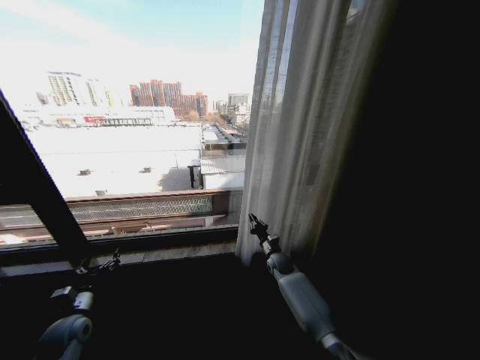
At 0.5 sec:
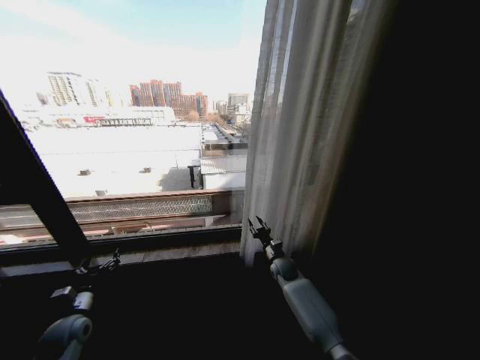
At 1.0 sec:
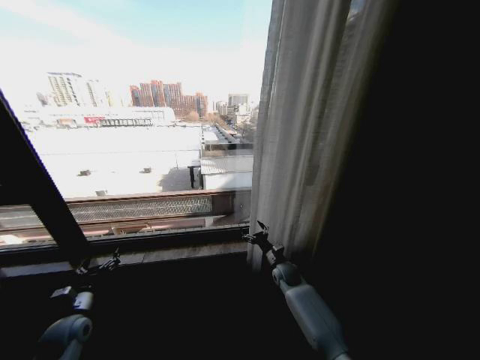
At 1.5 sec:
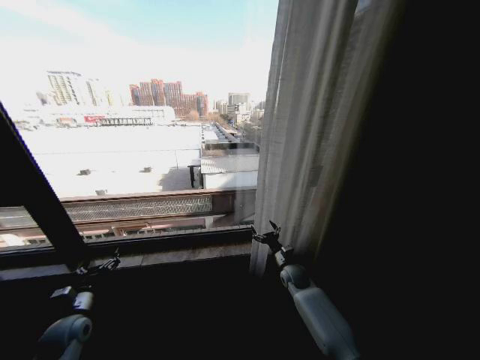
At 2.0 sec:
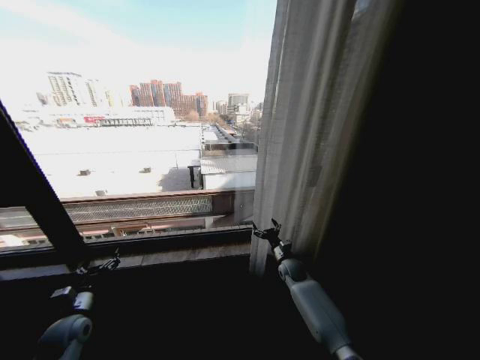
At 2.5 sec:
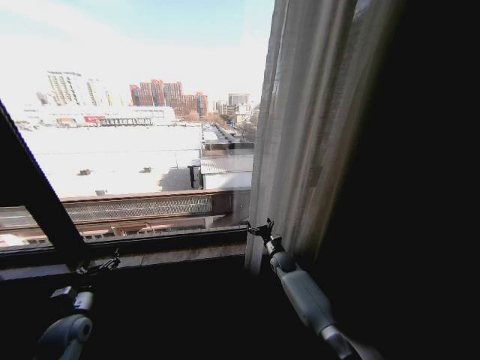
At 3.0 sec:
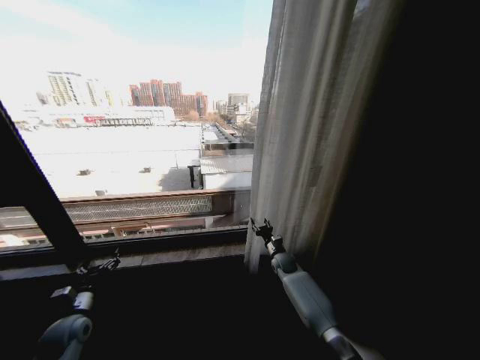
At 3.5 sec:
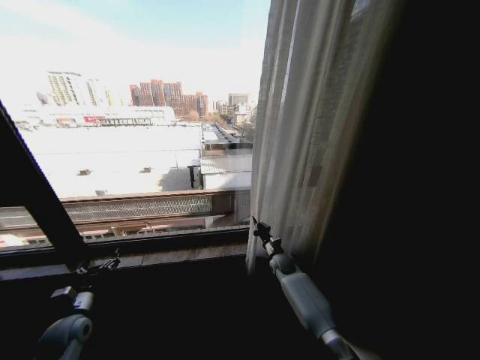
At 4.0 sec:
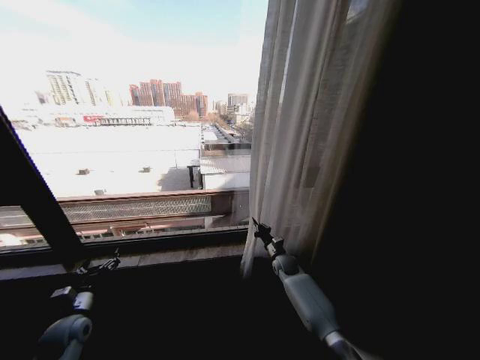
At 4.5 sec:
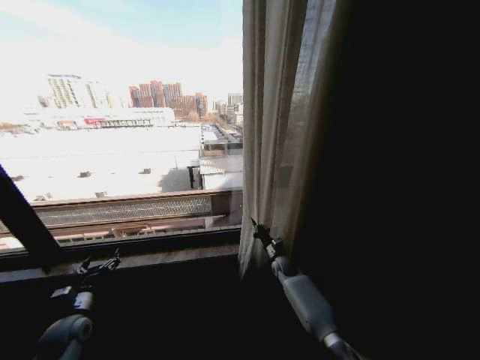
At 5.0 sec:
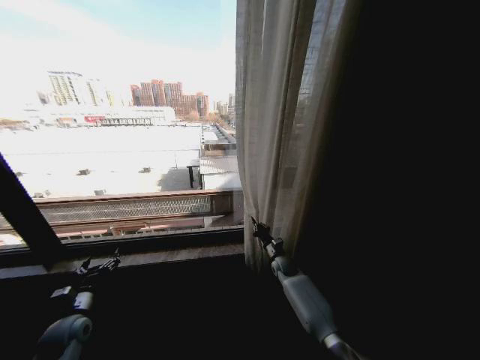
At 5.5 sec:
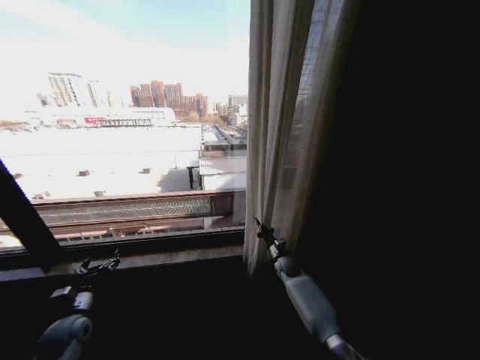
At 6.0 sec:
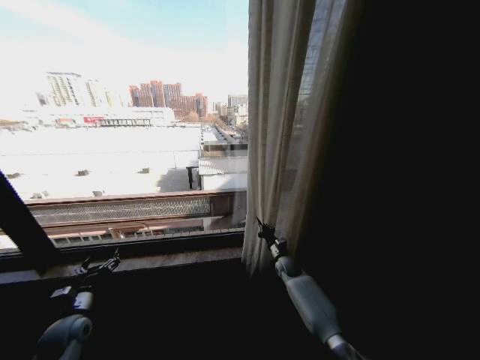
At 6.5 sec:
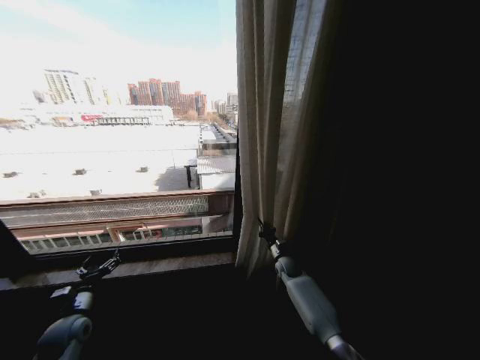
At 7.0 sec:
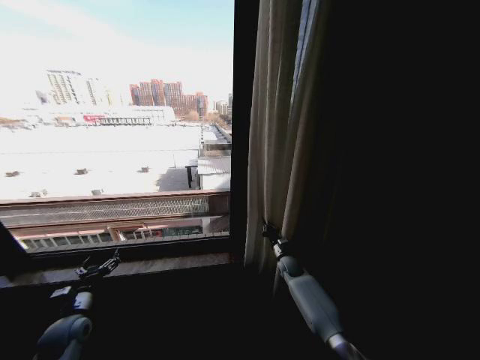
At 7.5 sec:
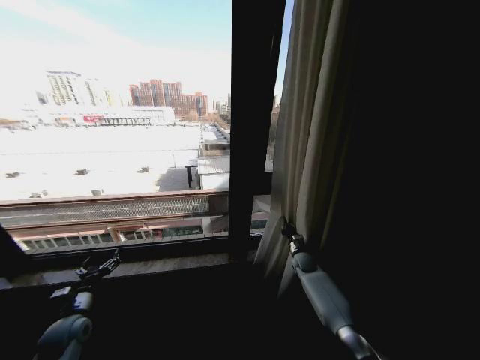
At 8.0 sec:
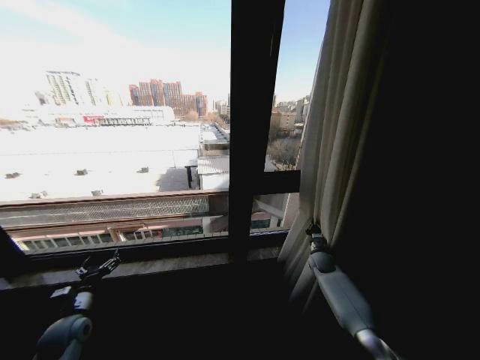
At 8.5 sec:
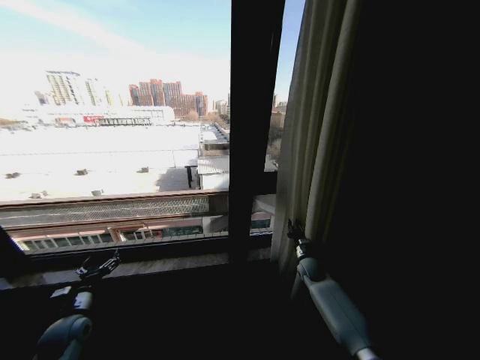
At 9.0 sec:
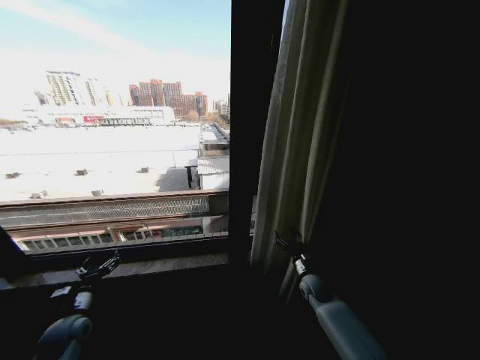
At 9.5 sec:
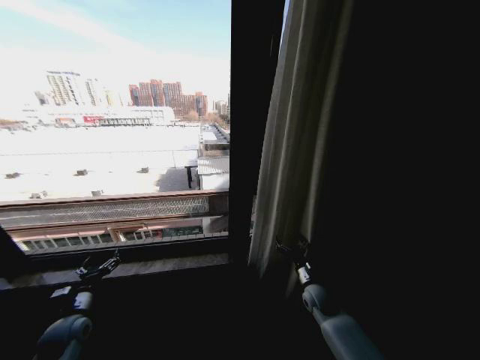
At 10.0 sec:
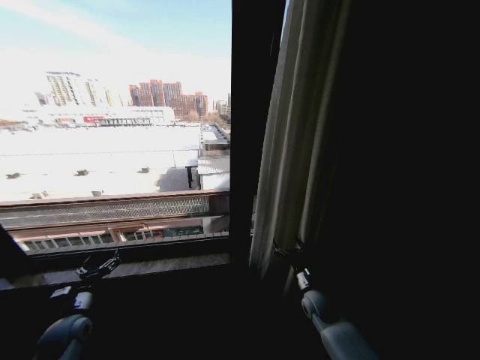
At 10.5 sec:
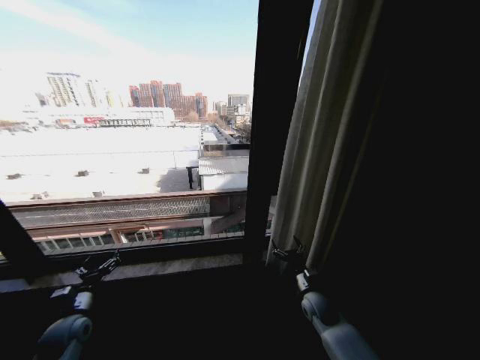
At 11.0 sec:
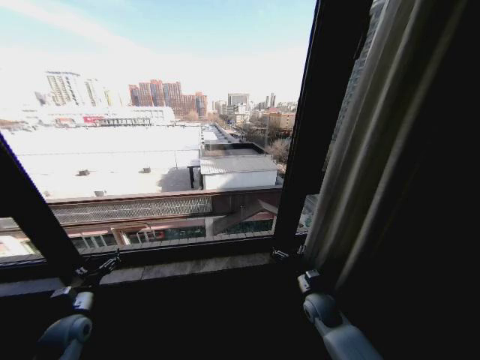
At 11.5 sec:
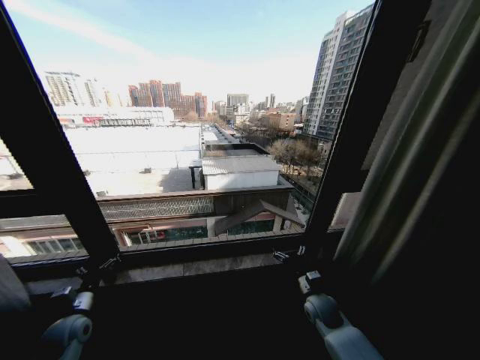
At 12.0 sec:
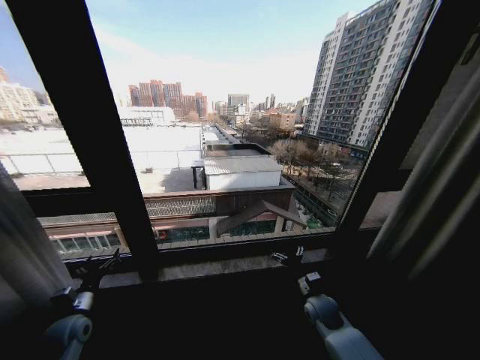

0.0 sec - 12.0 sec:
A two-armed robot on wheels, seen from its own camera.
Task of the whole recording: Open the curtains by pulling them apart, changing their state from closed to fully open.
0.0 sec - 2.0 sec: The right gripper opens.
2.0 sec - 4.0 sec: The right gripper closes.
4.0 sec - 6.0 sec: Neither gripper changes place.
6.0 sec - 8.0 sec: The right gripper shifts roughly 15 cm to the right.
8.0 sec - 10.0 sec: The right gripper travels backward and to the left by some 15 cm, and opens its fingers.

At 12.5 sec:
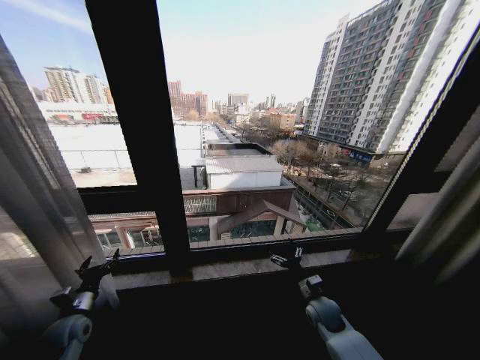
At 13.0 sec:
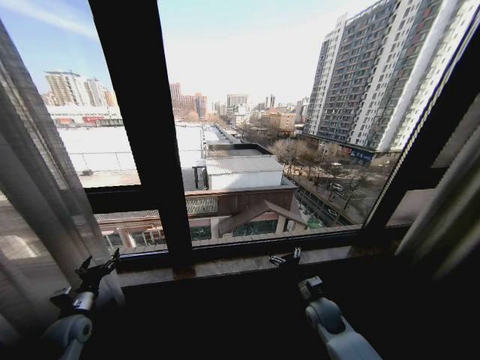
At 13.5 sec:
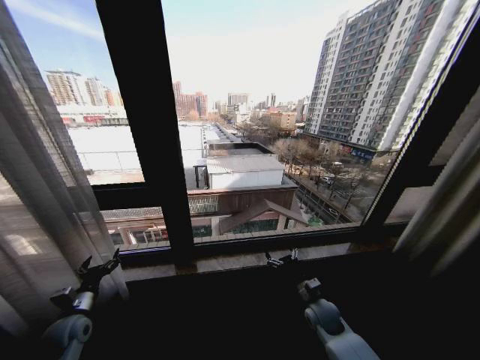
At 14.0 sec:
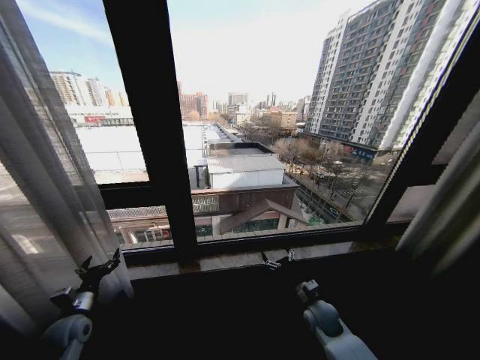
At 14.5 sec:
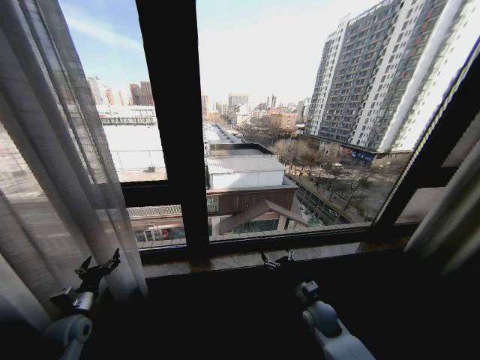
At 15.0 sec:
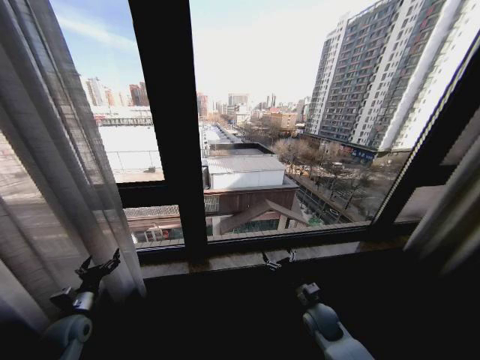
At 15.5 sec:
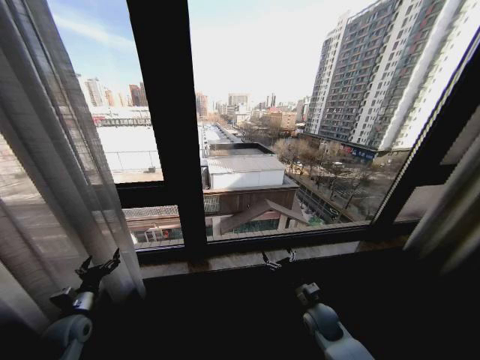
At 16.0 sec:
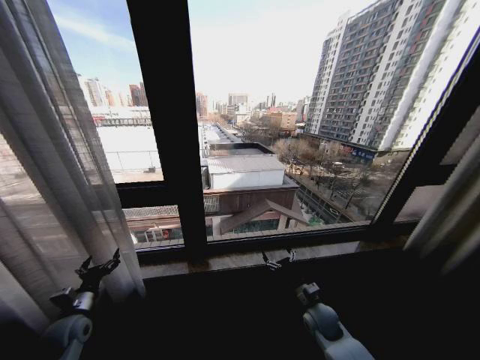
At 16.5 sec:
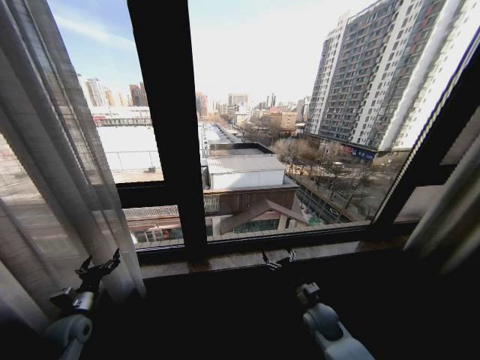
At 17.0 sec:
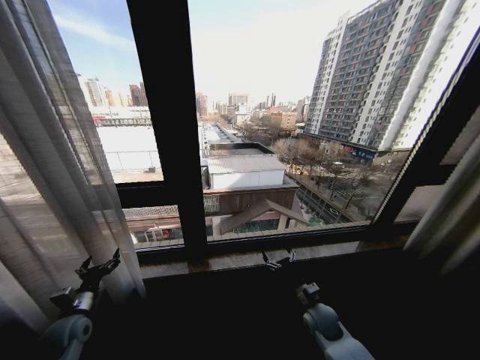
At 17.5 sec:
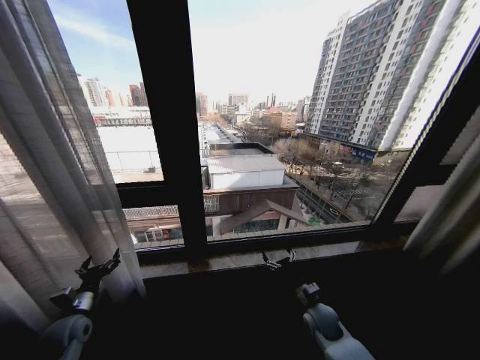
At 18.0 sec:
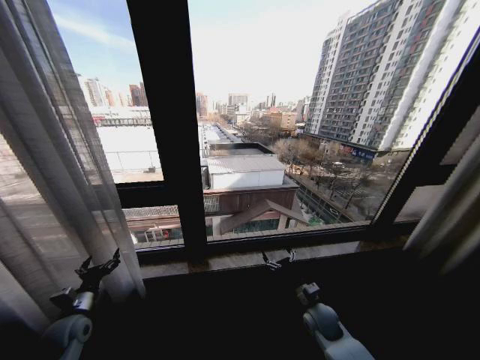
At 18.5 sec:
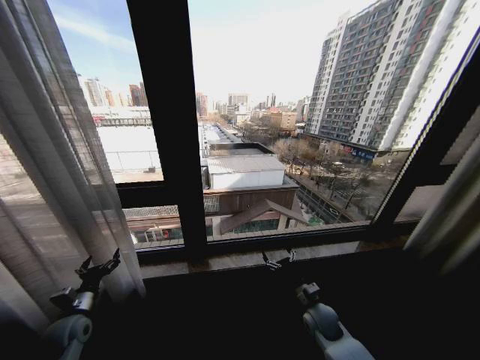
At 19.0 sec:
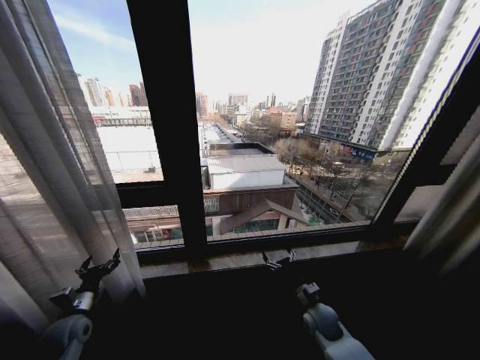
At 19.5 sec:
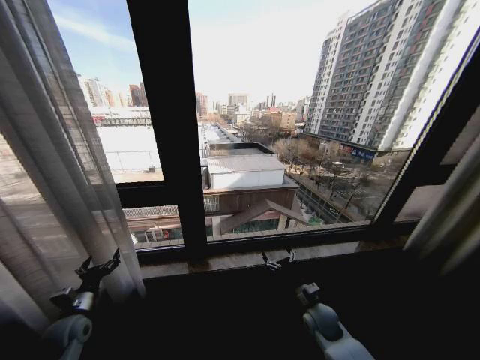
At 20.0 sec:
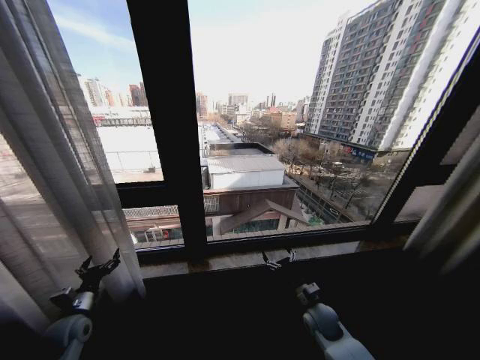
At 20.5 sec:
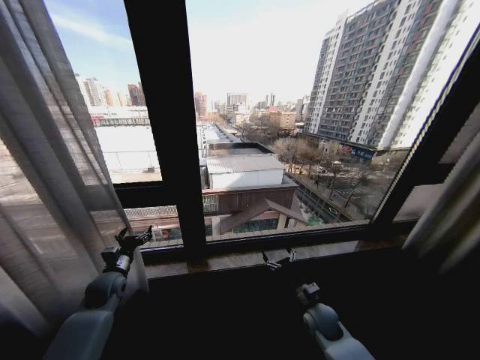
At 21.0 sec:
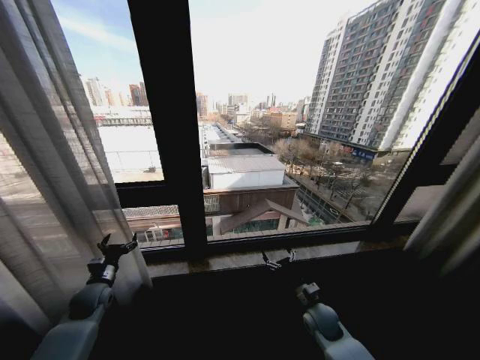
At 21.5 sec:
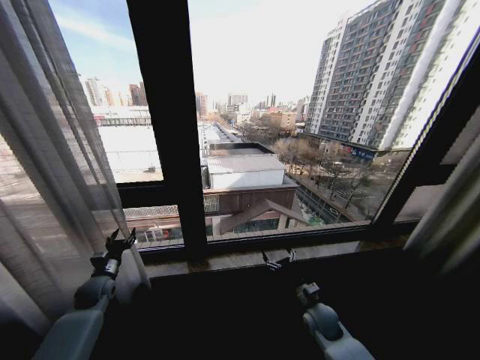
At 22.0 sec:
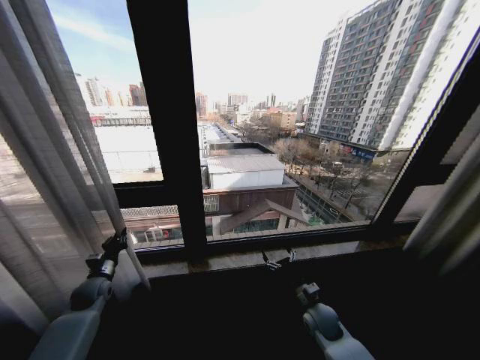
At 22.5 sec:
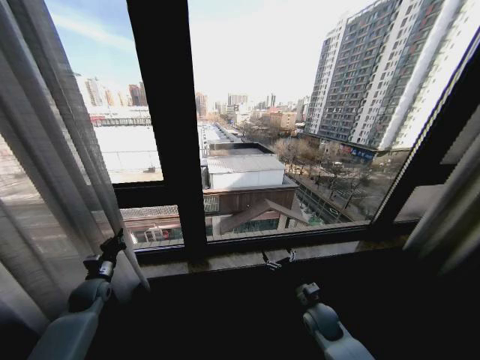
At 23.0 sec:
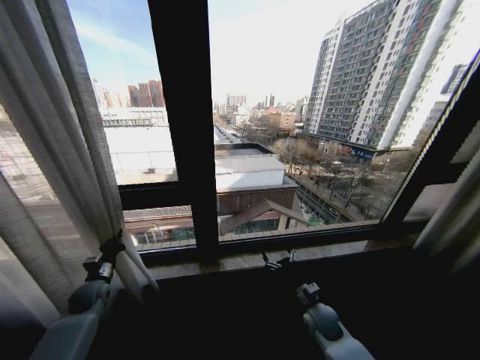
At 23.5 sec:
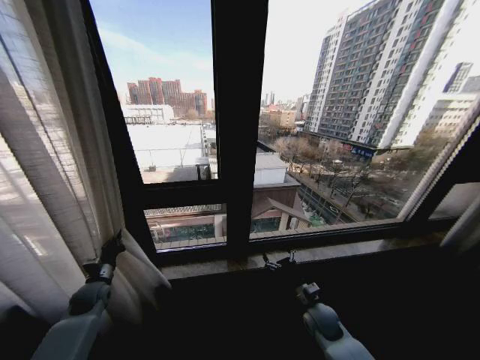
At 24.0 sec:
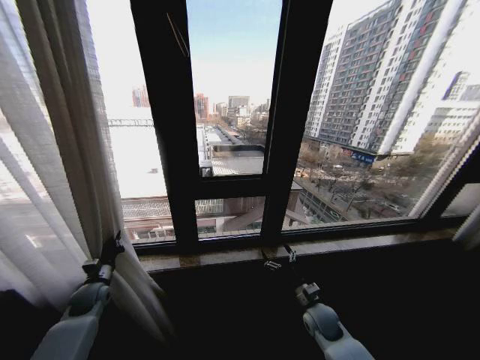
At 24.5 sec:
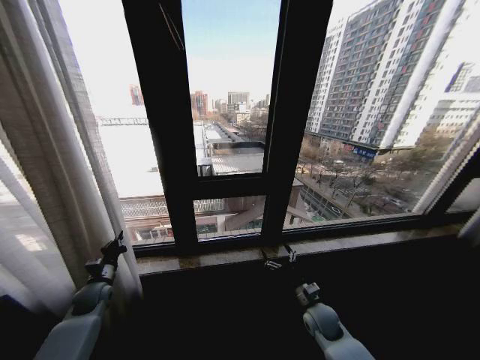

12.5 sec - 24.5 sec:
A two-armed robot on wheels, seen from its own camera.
Task of the whole recording: Open the curtains by pulling them apart, changing their state from closed to fully open.
14.5 sec - 18.5 sec: Both grippers stay about where they are.
18.5 sec - 20.5 sec: The left gripper goes about 10 cm forward and to the right.
20.5 sec - 22.5 sec: The left gripper moves to the left, approximately 5 cm, and closes up.

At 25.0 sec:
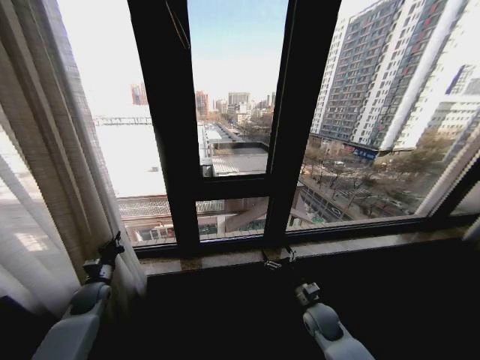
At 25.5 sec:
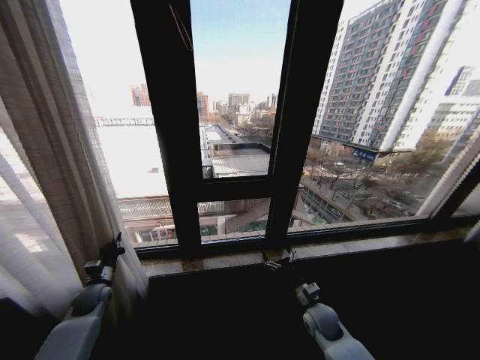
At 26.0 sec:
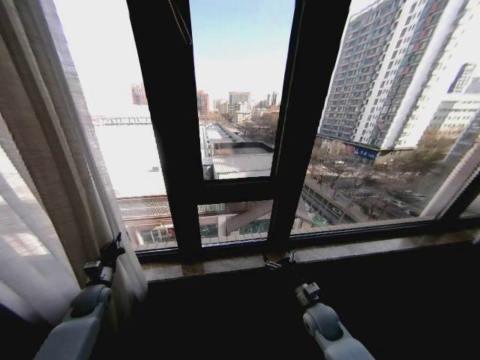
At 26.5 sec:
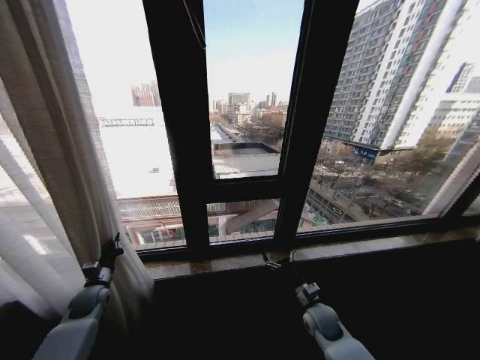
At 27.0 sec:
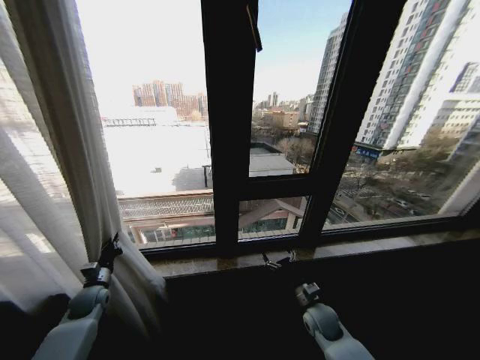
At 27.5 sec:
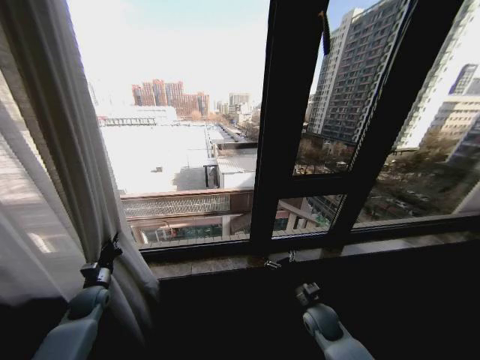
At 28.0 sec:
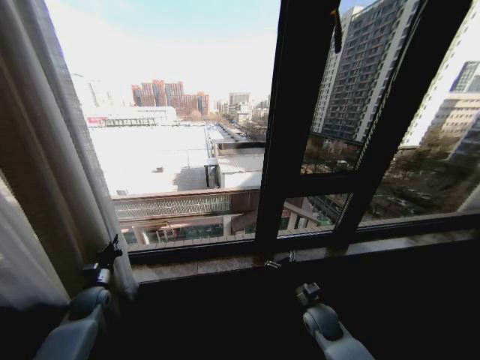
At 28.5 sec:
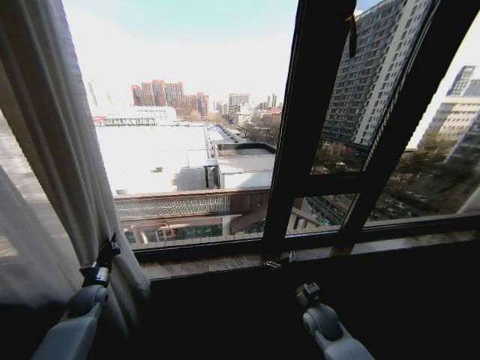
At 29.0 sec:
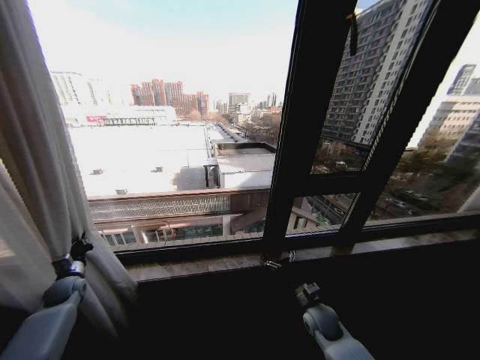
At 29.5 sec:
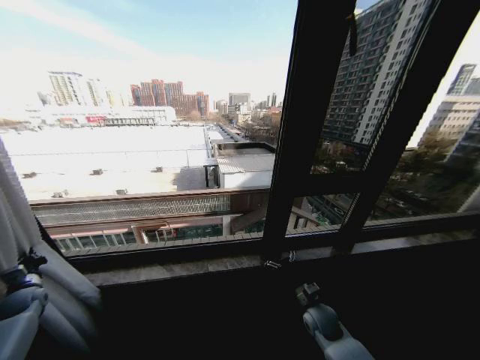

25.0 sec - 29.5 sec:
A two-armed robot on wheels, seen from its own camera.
Task of the whole recording: Open the curtains by pulling them apart, changing their state from closed to fully open.
27.0 sec - 29.5 sec: The left gripper shifts some 20 cm to the left.
